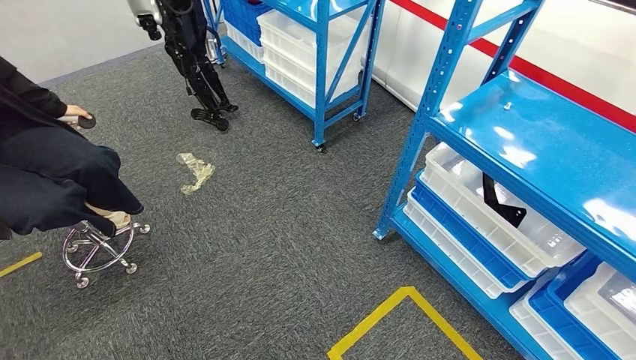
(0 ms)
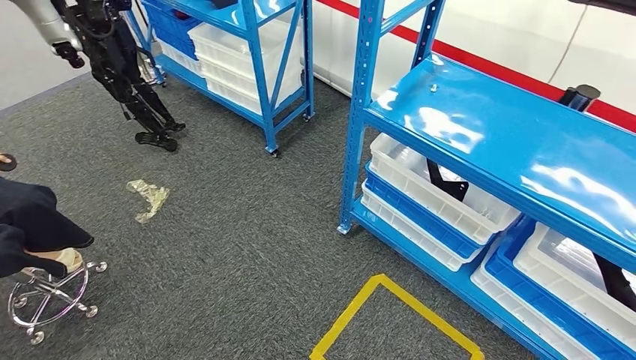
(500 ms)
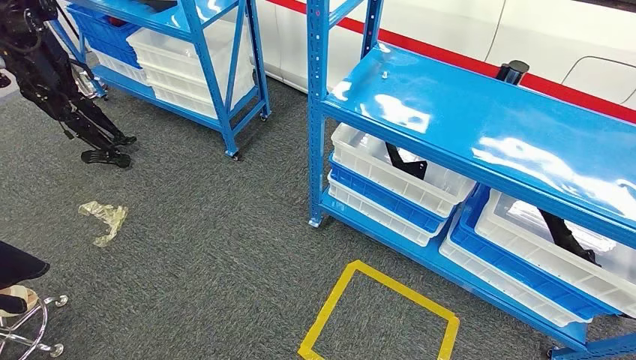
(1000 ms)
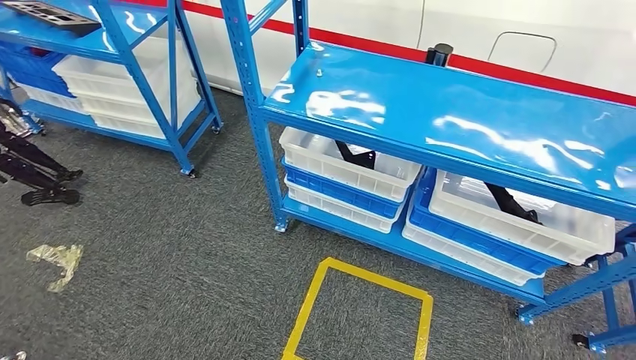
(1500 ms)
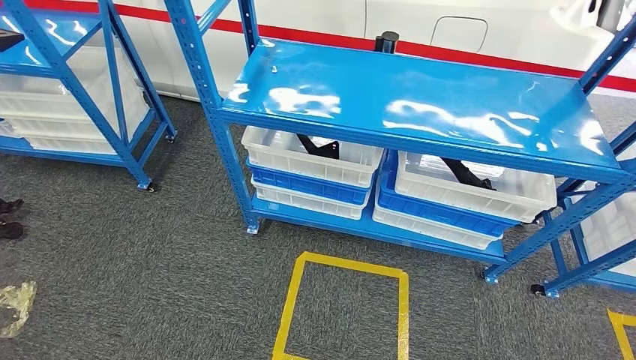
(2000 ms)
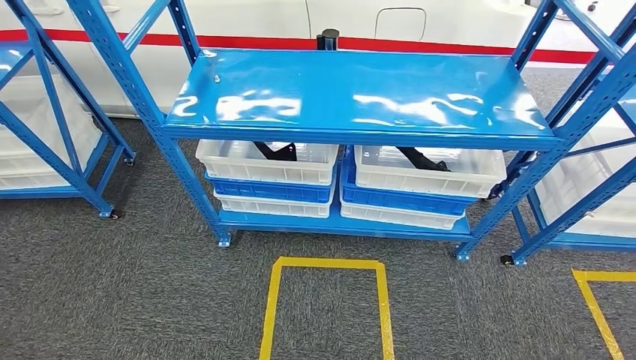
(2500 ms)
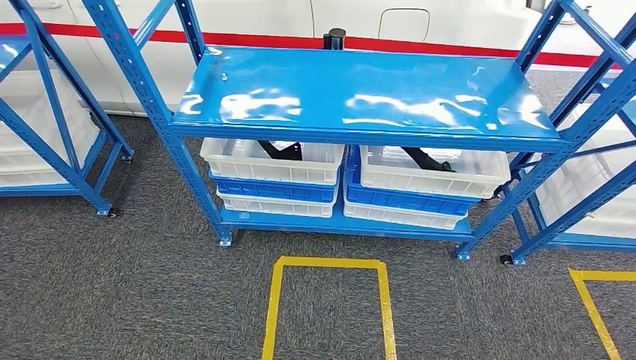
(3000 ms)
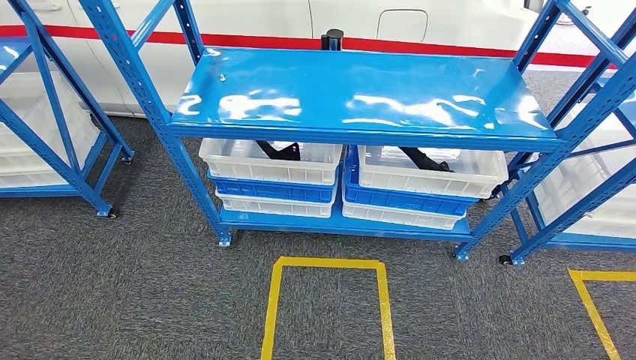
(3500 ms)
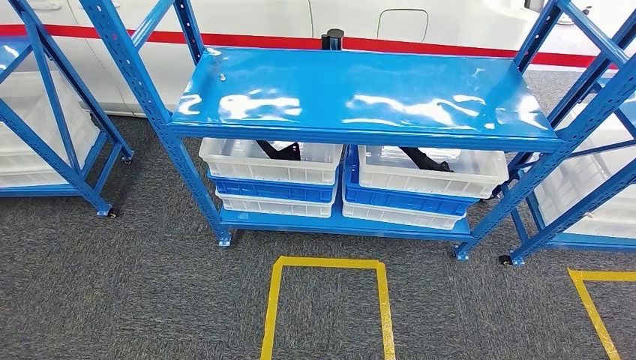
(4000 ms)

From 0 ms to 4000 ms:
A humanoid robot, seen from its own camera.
Step, from 0 ms to 4000 ms: Return to the initial position at the shelf.

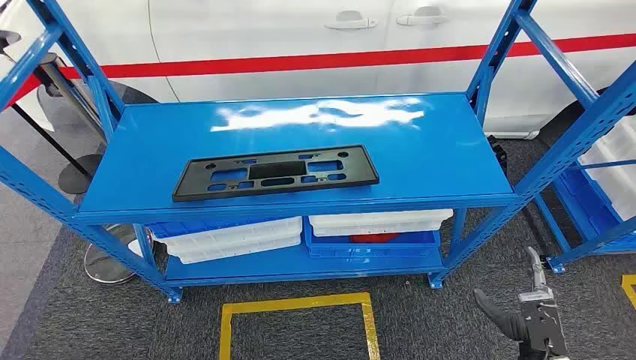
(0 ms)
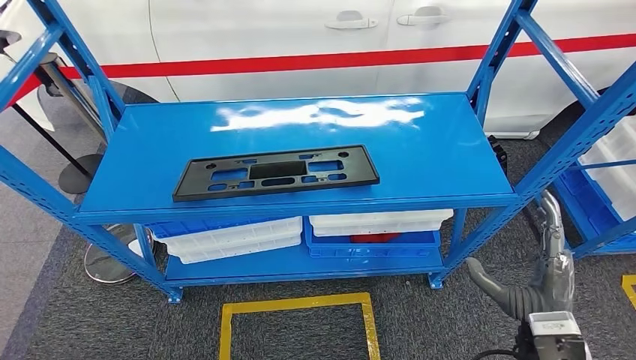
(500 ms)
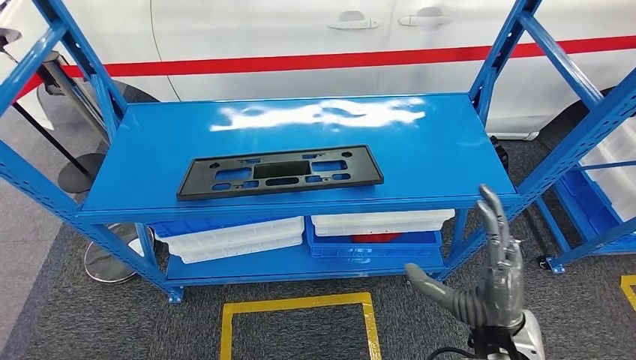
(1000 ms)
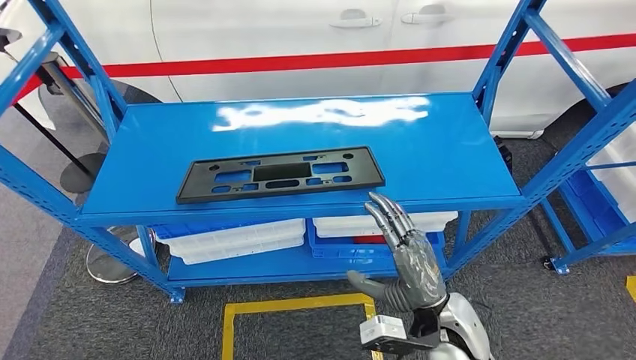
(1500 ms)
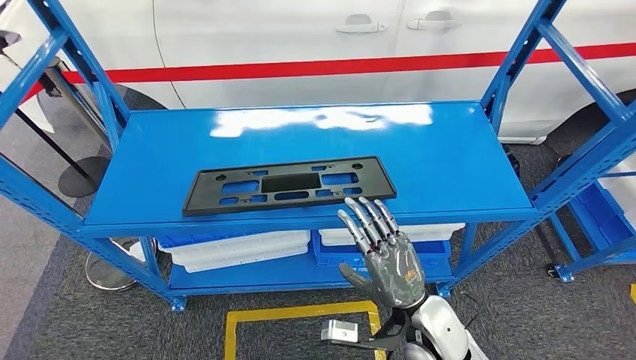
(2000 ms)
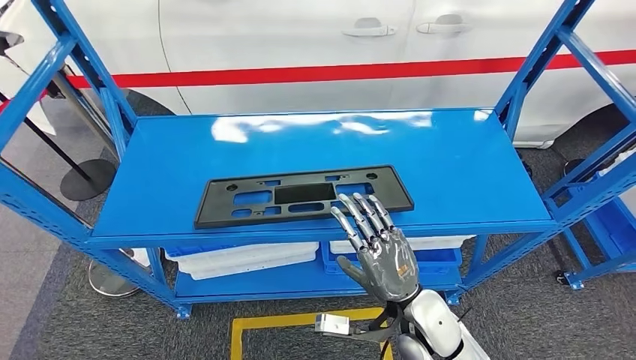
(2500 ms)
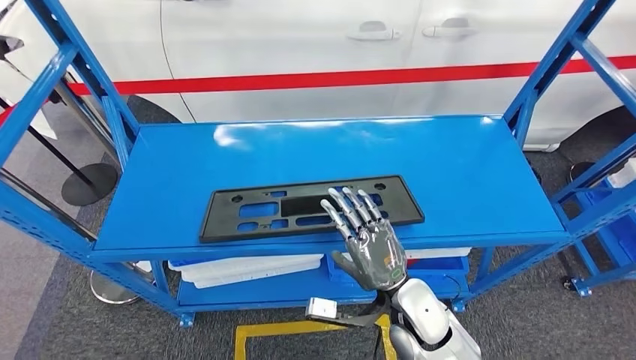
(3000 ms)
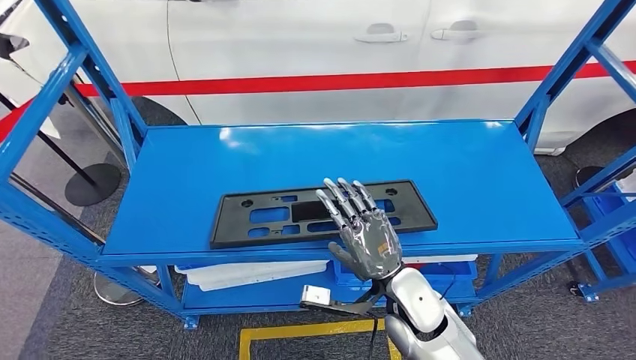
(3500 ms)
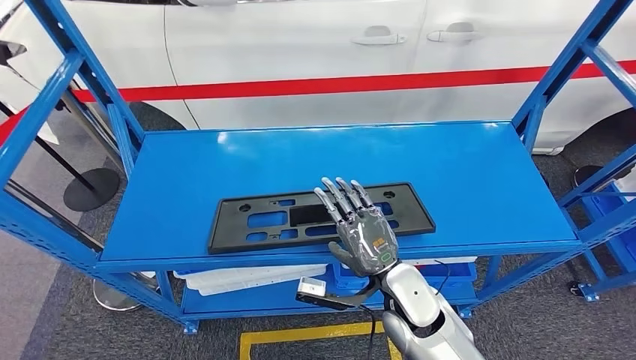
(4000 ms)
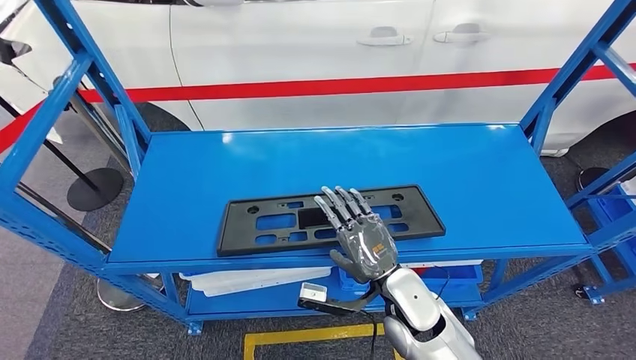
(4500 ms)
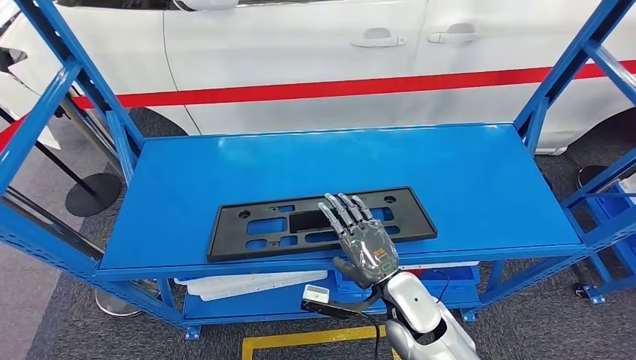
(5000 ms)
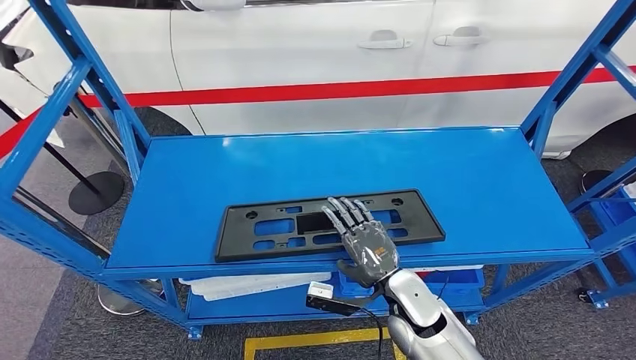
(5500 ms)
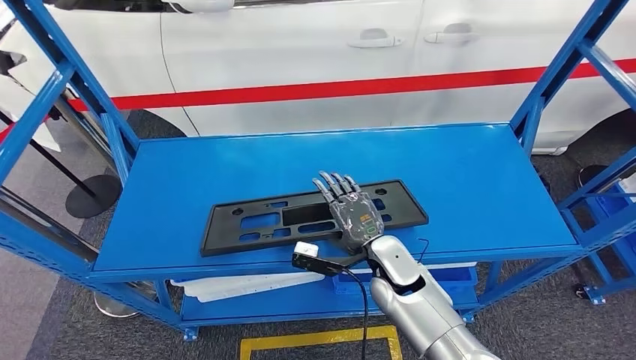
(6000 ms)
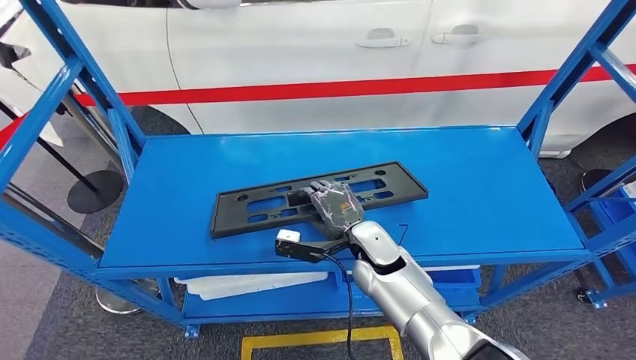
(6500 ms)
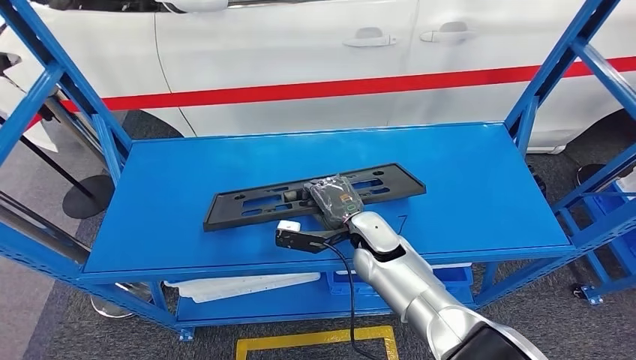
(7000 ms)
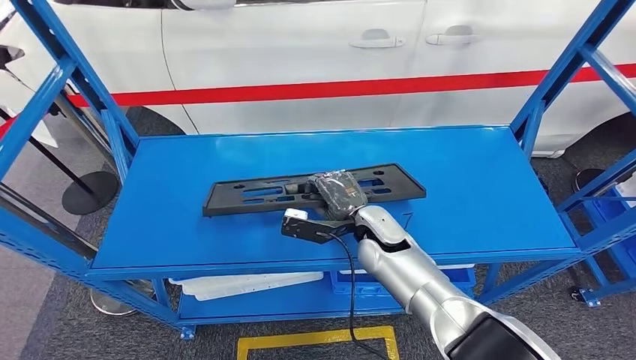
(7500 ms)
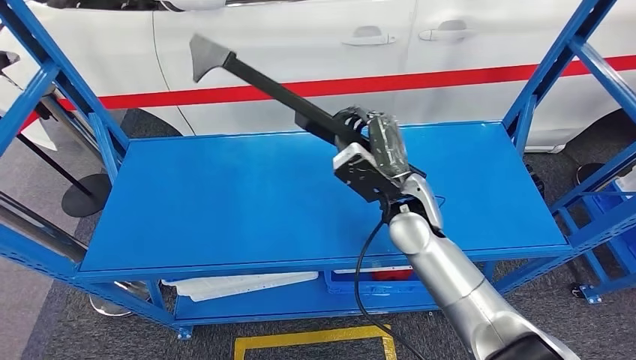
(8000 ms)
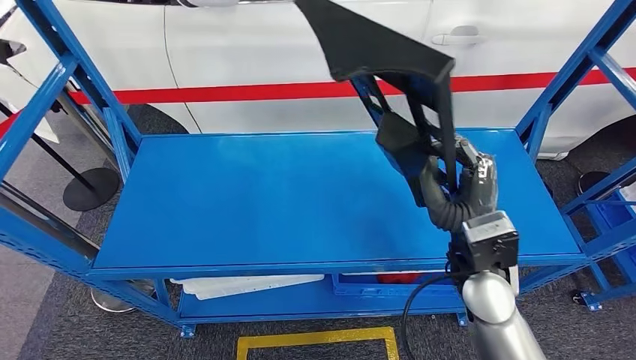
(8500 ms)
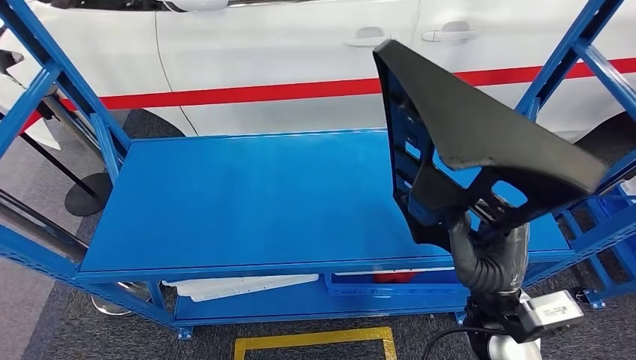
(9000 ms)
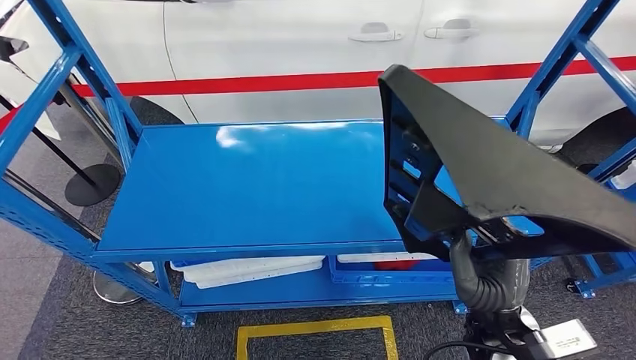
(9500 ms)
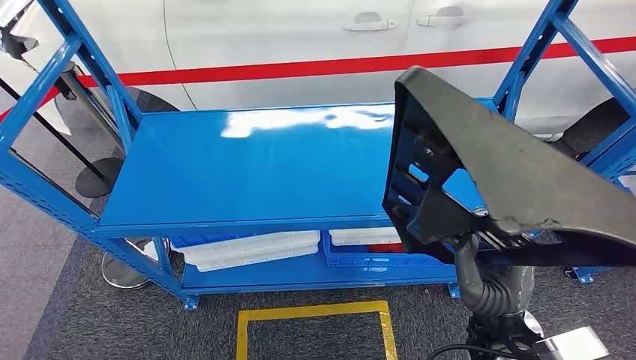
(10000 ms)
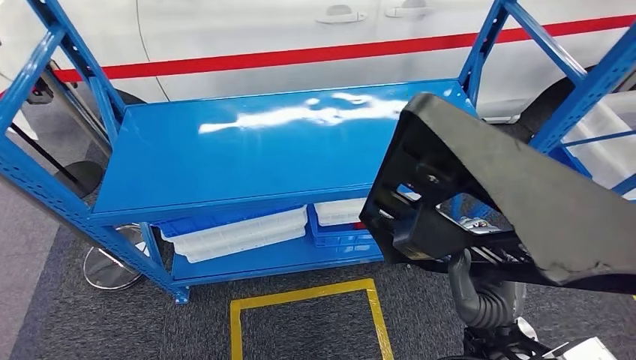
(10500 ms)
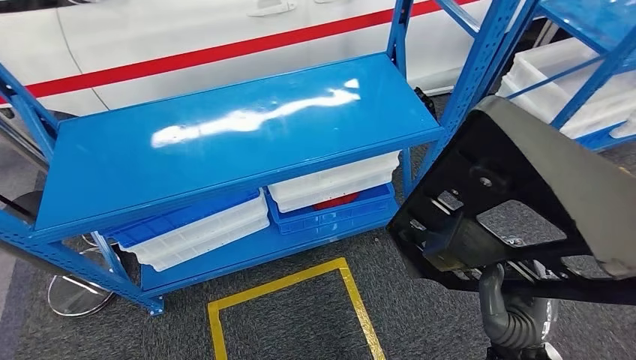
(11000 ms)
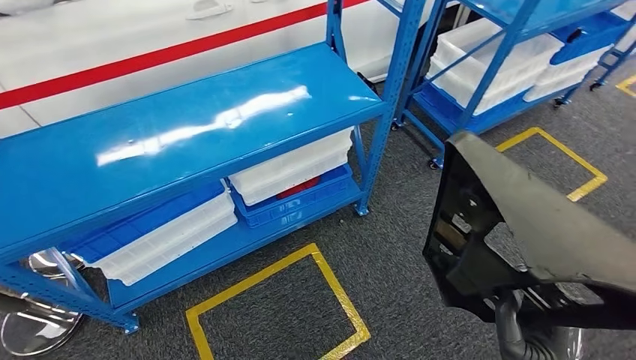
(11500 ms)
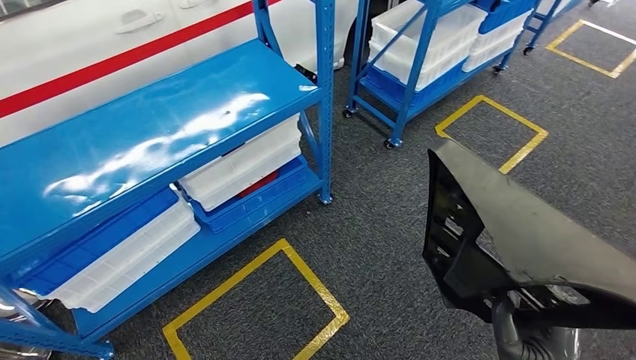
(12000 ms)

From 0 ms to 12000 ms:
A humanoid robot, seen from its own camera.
Step, from 0 ms to 8500 ms: Pick up the large material from the shelf.

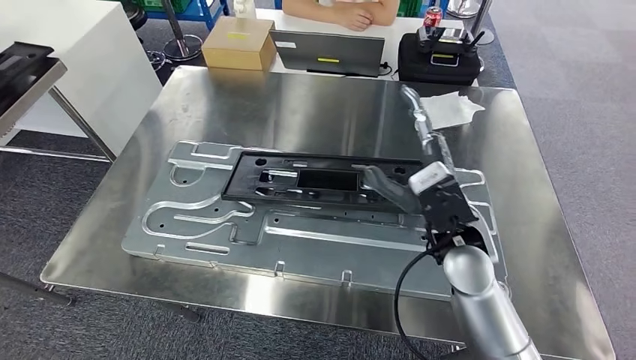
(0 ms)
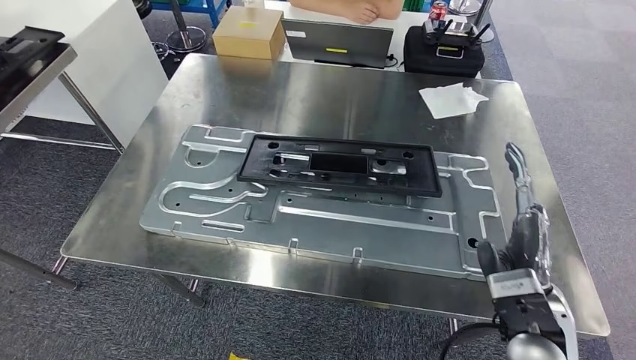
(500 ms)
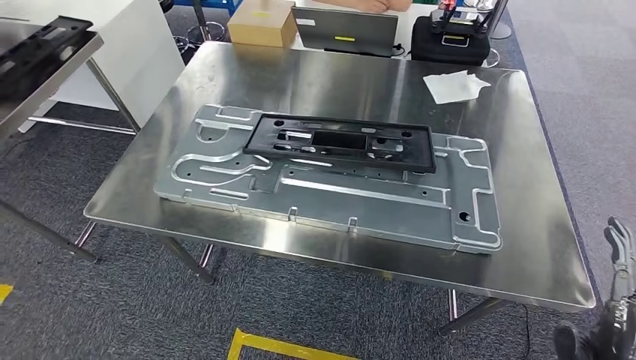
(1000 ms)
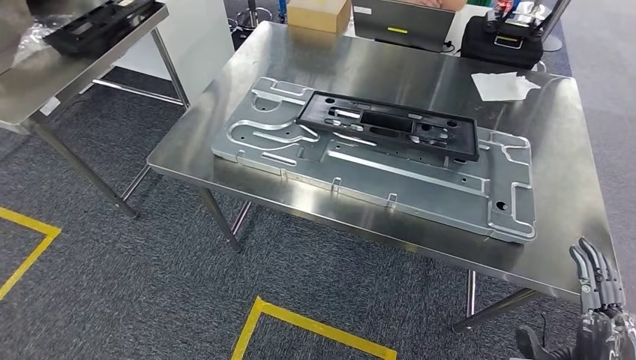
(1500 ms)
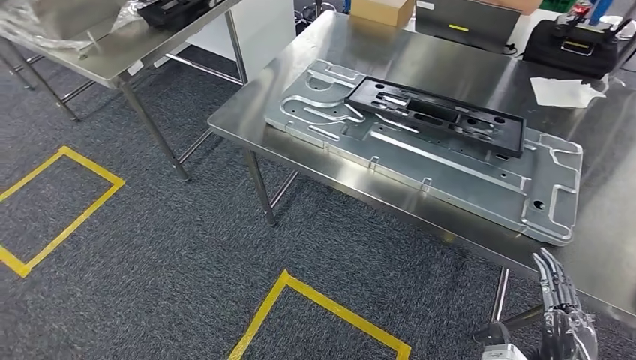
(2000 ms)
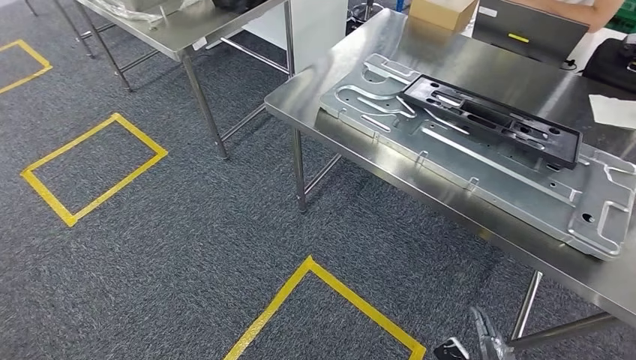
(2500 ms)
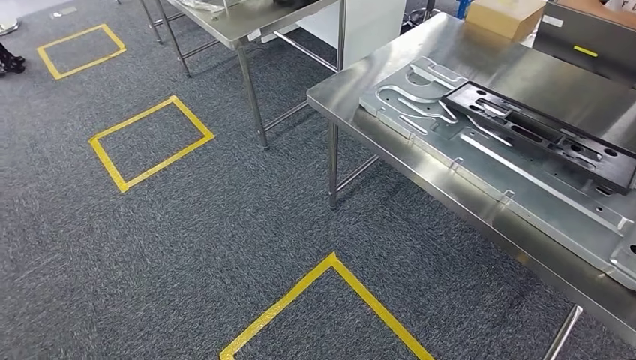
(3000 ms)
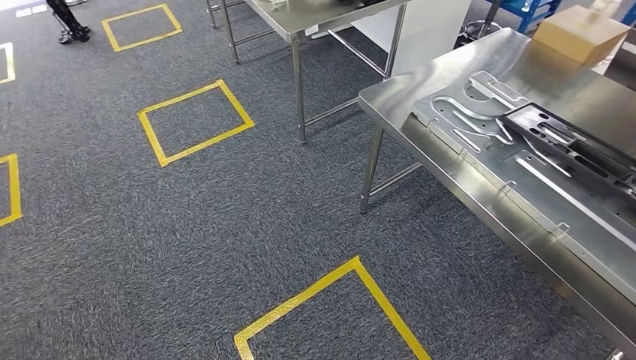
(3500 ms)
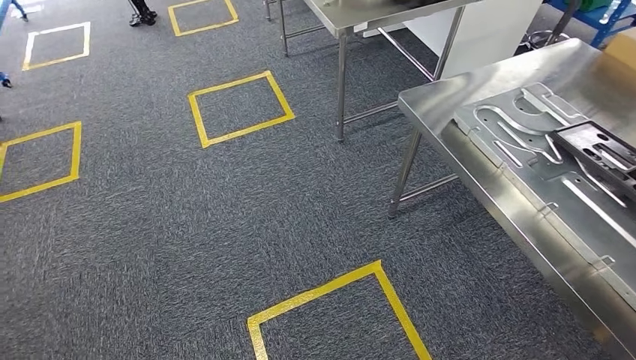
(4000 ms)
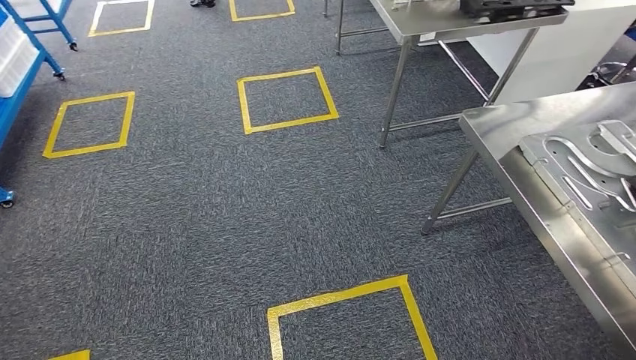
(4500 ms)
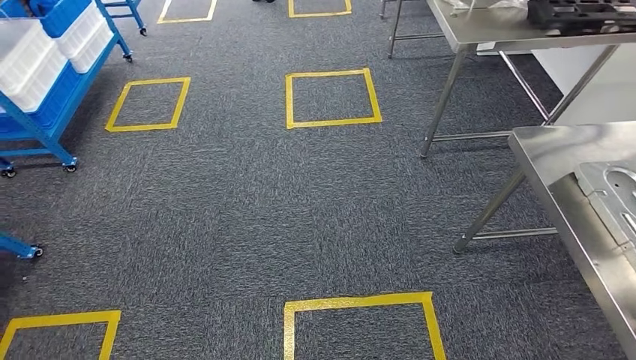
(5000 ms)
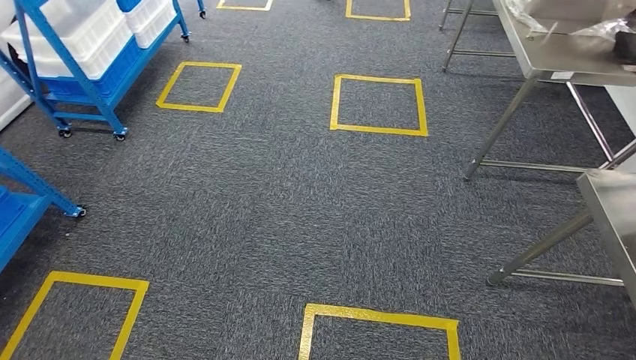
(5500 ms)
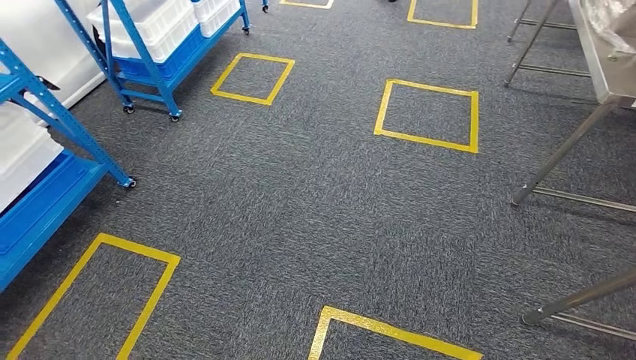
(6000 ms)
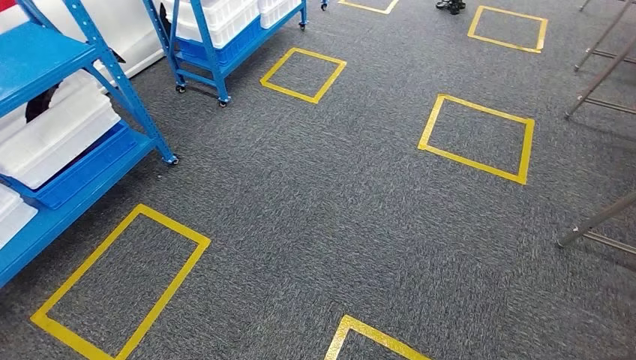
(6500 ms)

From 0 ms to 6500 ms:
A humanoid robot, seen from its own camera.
Step, from 0 ms to 2500 ms: Insert the large material into the corresponding slot on the workbench.
